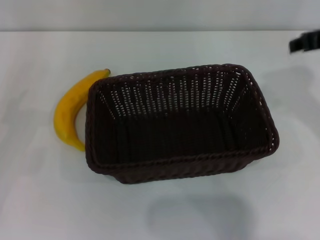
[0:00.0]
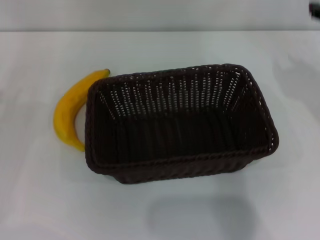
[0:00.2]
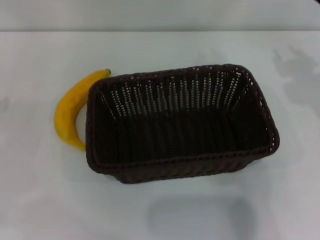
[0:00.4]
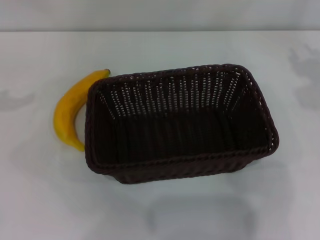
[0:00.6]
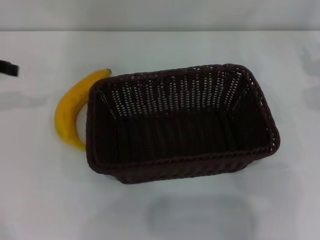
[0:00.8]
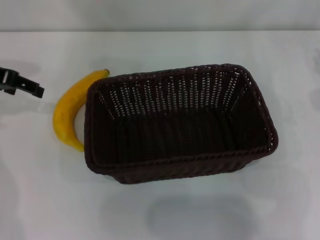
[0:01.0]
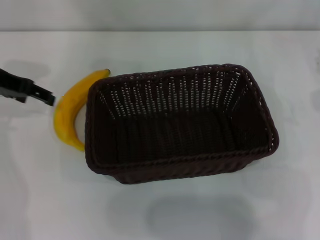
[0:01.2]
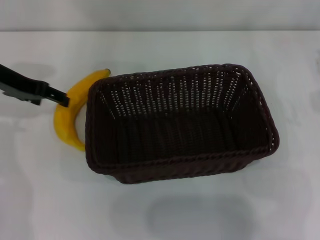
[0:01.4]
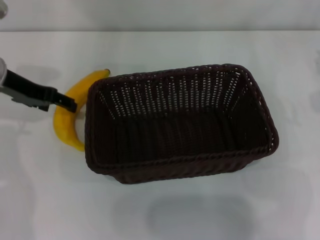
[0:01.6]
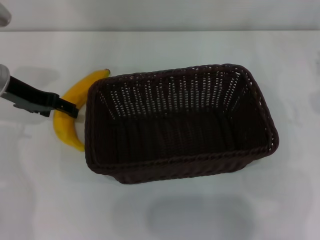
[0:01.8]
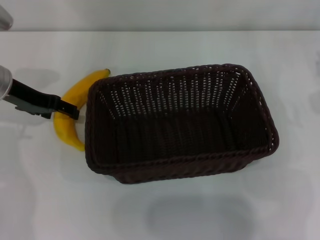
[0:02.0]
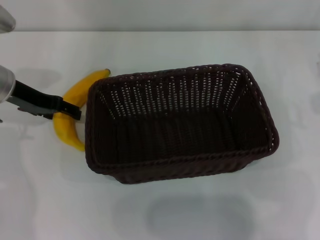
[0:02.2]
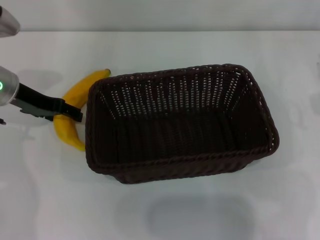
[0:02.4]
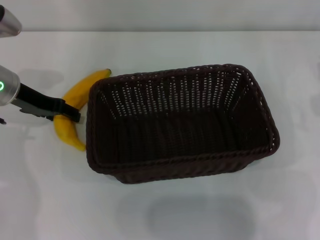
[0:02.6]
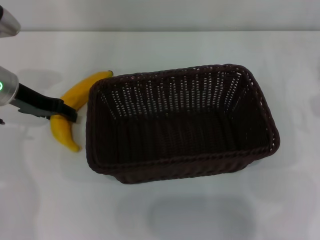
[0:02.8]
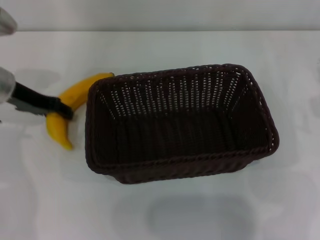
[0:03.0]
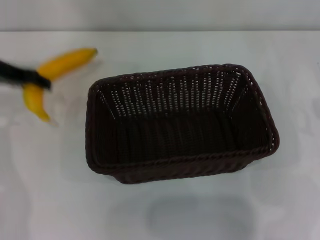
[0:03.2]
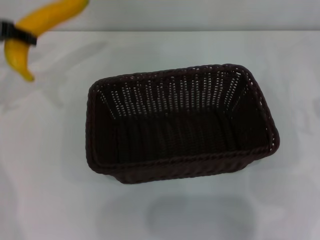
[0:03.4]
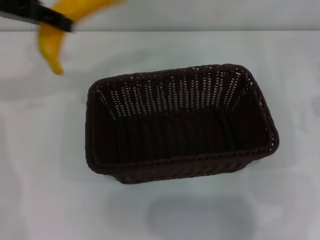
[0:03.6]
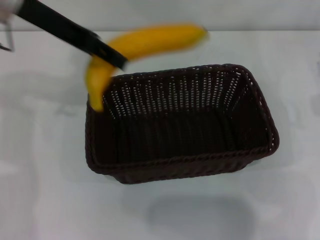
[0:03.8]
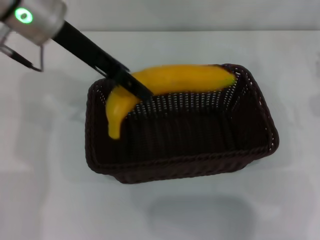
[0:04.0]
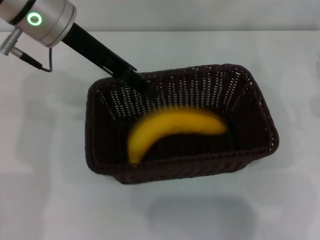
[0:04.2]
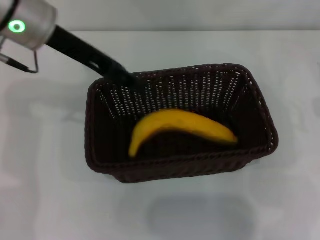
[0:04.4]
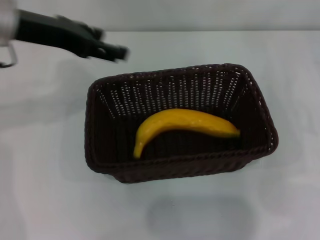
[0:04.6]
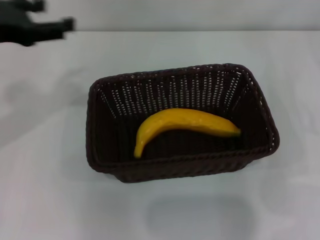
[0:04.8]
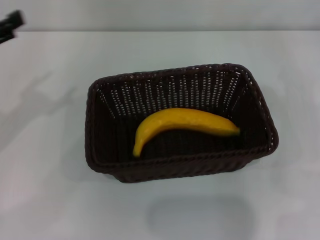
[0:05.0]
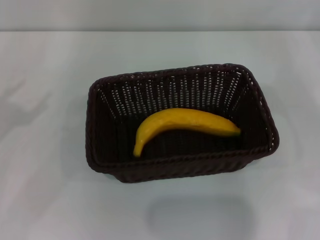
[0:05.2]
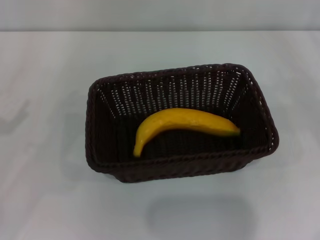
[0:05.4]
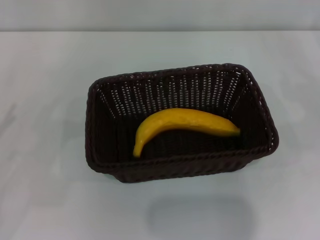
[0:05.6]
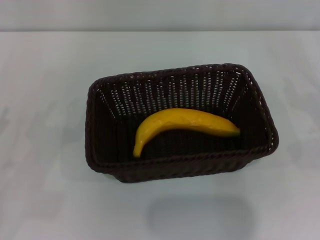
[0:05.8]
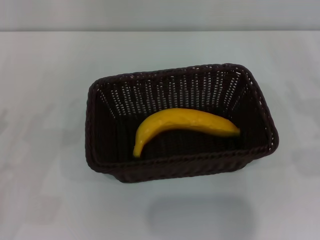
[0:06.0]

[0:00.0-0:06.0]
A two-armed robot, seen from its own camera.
Step, 0:00.0 to 0:03.0: Pick up the banana with the left gripper.
Step, 0:03.2 to 0:04.2: Place the banana into the dark basket with the left gripper.
0:00.0 to 0:01.6: The right gripper heads to the right and downward, covering approximately 15 cm; the left gripper heads to the right and forward, covering roughly 20 cm.
0:01.6 to 0:03.0: The left gripper closes its fingers.
0:03.0 to 0:04.4: The left gripper goes about 15 cm upward and to the right.
0:04.4 to 0:06.0: The right gripper goes about 15 cm downward, to the right and backward; the left gripper shifts approximately 30 cm to the left, backward and downward, and opens.
